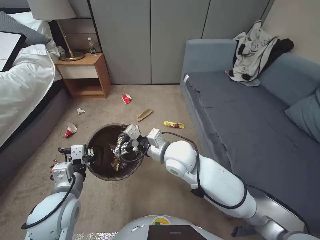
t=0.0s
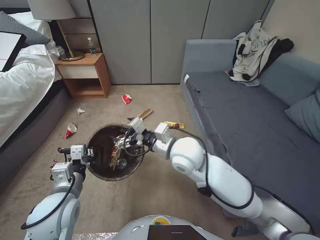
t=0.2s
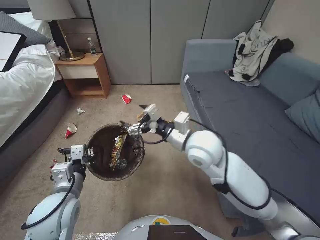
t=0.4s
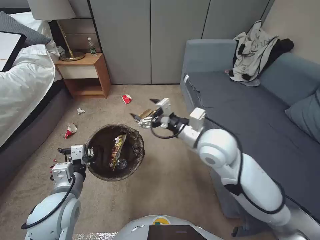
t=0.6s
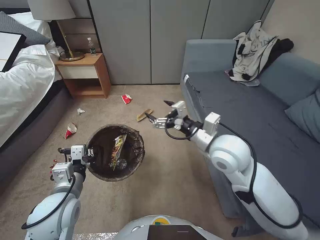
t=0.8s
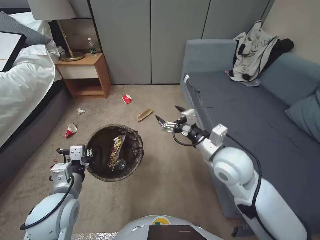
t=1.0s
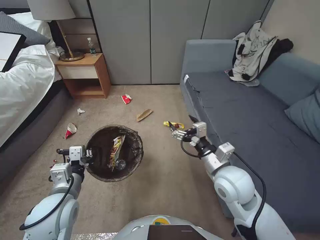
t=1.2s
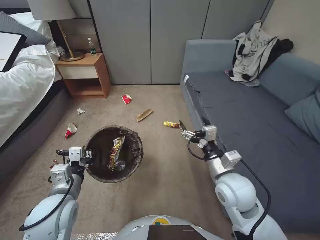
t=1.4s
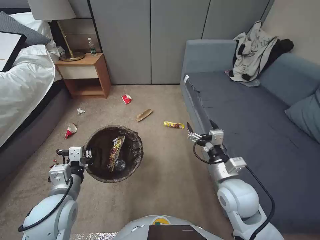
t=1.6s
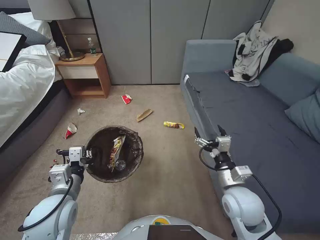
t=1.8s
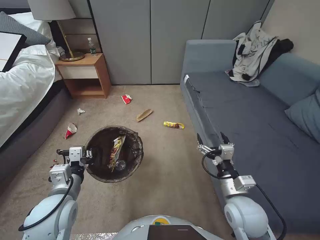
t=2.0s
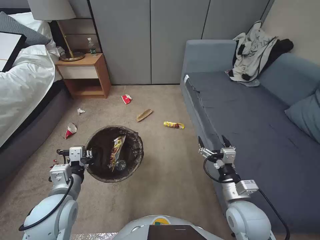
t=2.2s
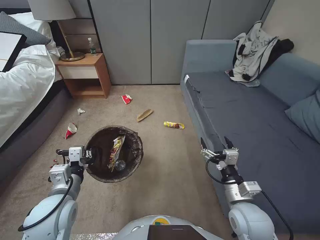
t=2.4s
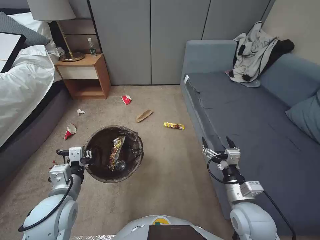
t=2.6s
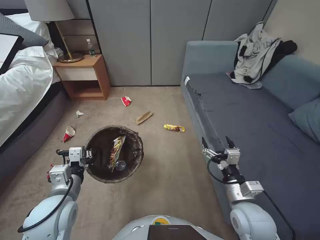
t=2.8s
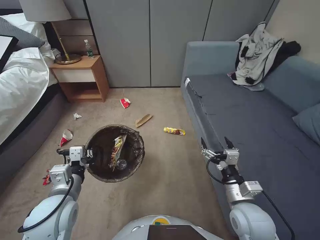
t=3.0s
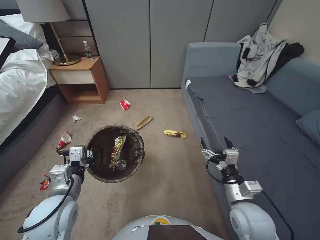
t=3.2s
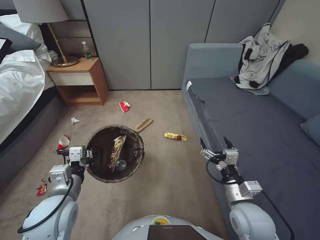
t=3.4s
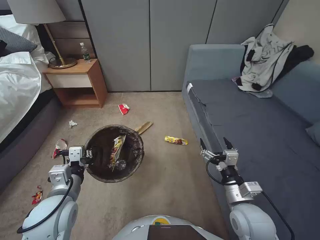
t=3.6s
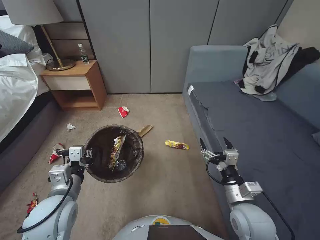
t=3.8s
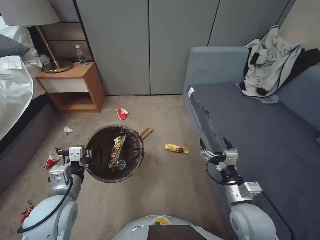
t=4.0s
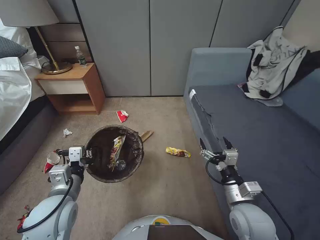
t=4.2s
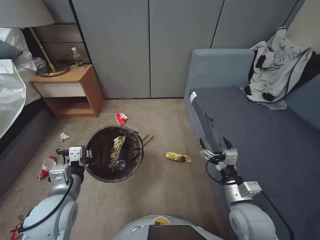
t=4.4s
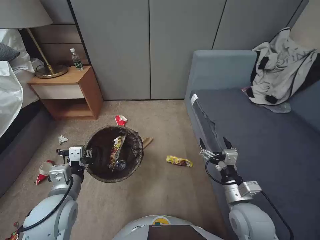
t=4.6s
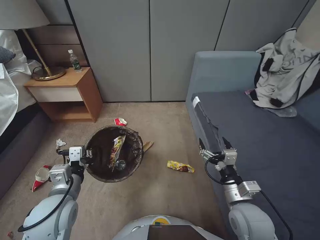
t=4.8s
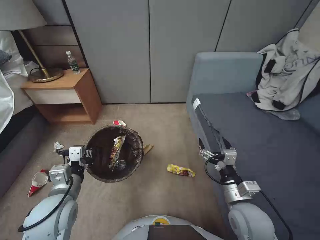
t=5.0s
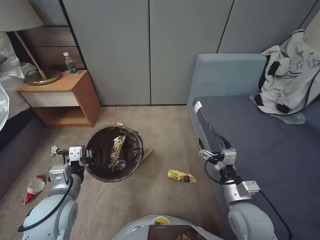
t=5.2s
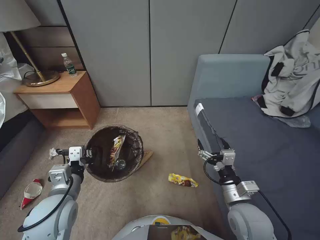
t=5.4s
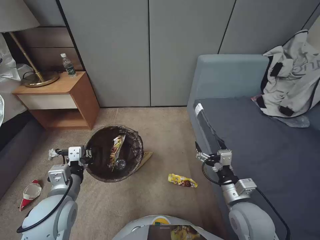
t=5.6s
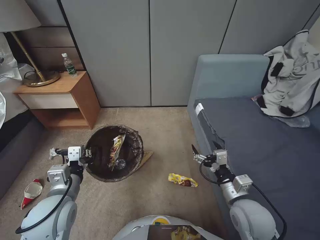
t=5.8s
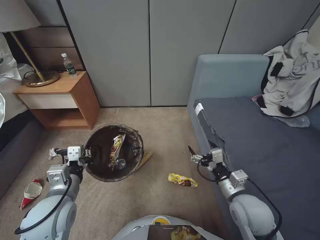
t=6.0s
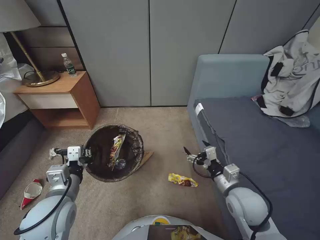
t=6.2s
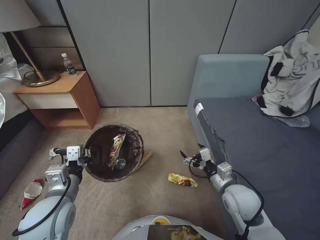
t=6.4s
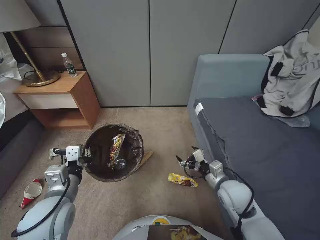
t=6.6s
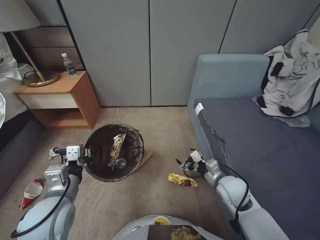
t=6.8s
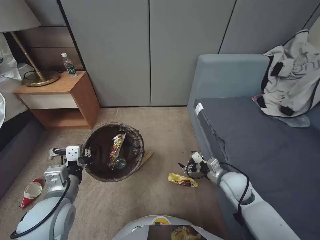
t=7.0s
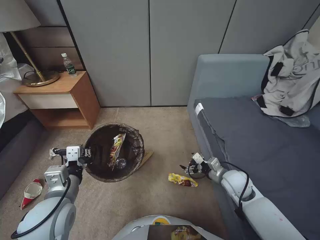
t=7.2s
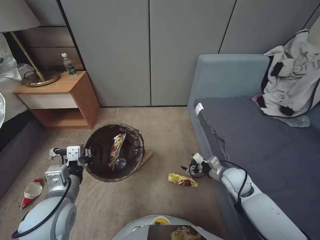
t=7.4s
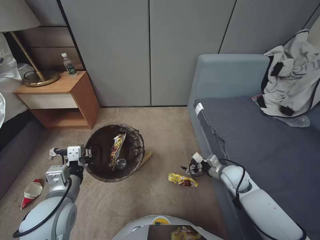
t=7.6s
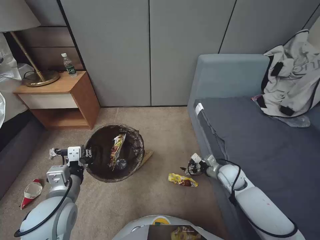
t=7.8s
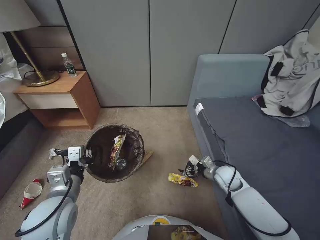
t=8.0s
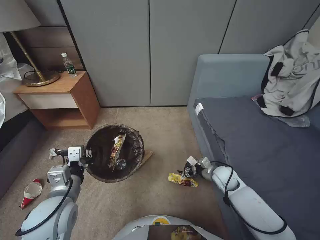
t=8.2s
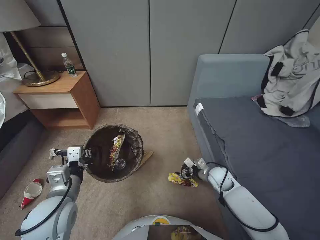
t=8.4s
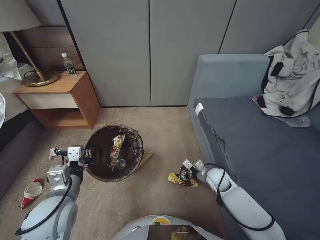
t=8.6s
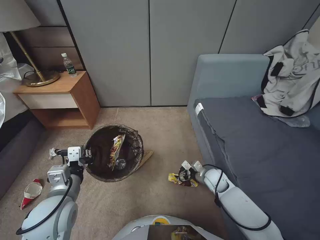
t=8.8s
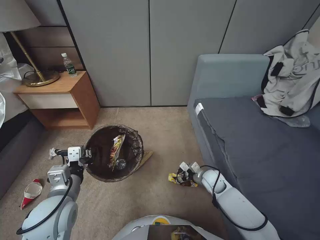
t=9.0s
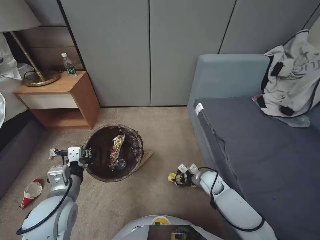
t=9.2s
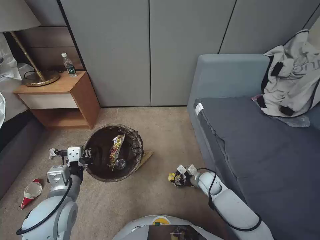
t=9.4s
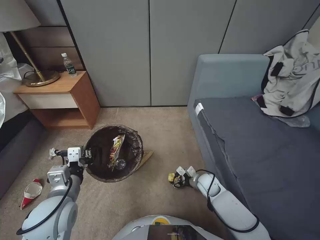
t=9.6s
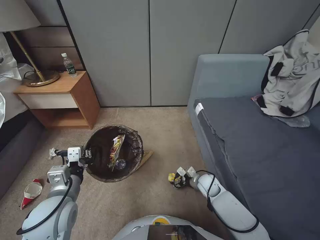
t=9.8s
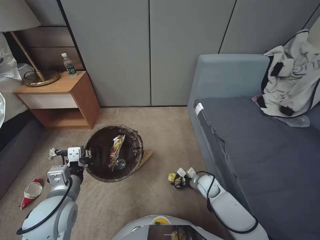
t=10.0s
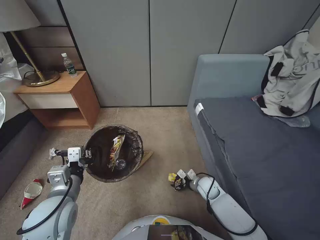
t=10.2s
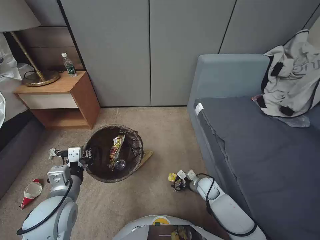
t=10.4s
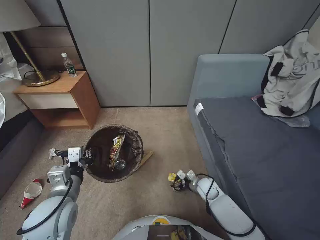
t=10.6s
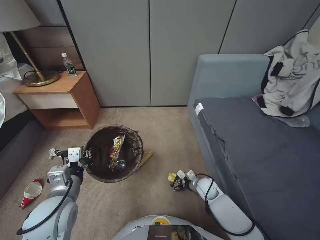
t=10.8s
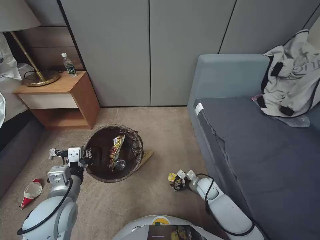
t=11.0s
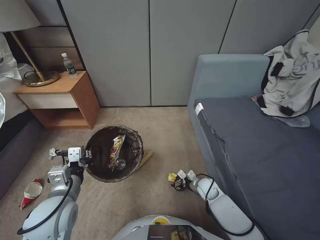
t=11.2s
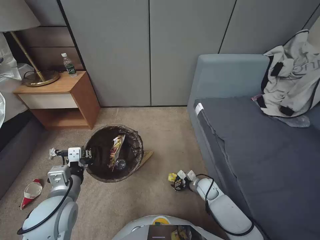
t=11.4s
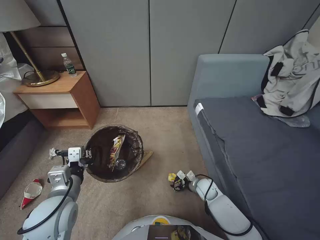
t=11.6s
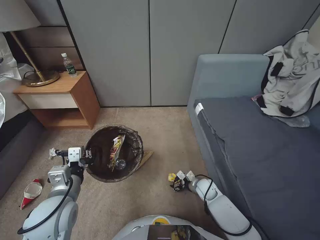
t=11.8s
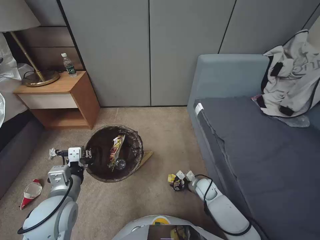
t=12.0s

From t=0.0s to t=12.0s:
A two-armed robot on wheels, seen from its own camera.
Task of the whole recording: Pick up the trash bin, then pick up the garbage from the floor and place it into the trash bin.
From t=0.0s to t=1.6s: The right gripper moves to the right and backward, roughly 20 cm.
From t=1.6s to t=3.0s: The right gripper goes roughly 5 cm backward.
From t=6.0s to t=7.6s: The right gripper goes about 15 cm forward and downward.
From t=7.6s to t=9.0s: The right gripper moves downward, approximately 10 cm.
From t=9.0s to t=10.4s: The right gripper shifts some 5 cm downward.
From t=10.4s to t=12.0s: The grippers move only a little.

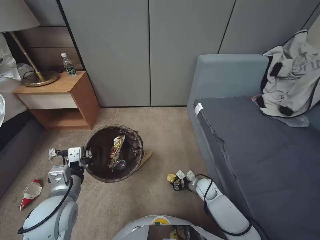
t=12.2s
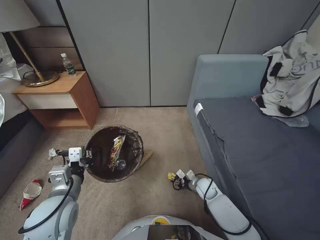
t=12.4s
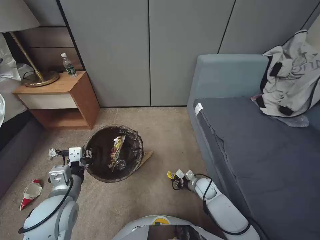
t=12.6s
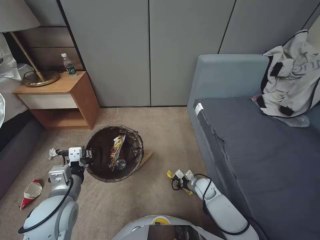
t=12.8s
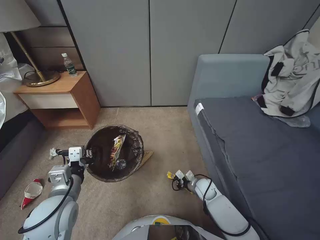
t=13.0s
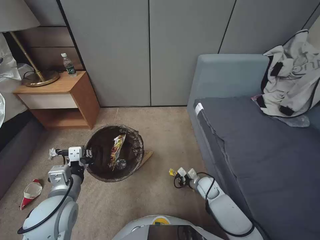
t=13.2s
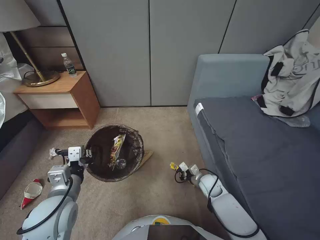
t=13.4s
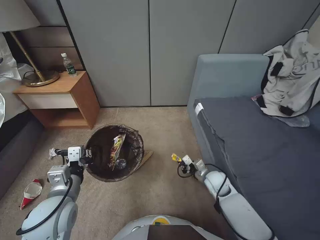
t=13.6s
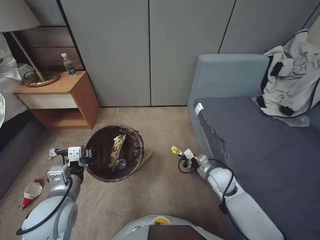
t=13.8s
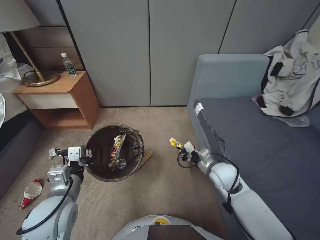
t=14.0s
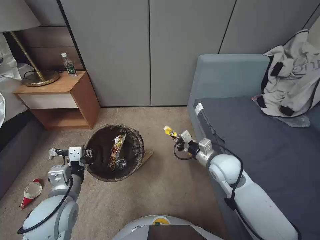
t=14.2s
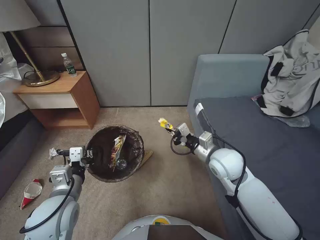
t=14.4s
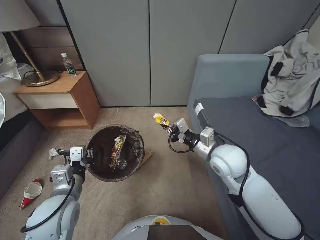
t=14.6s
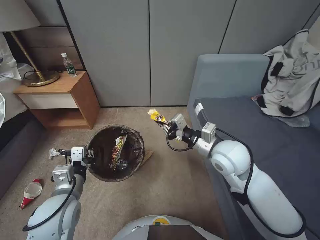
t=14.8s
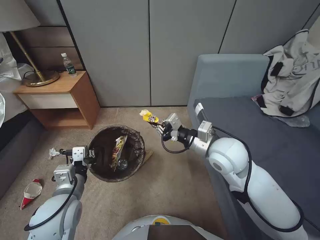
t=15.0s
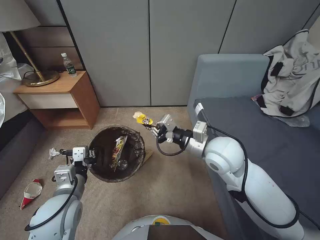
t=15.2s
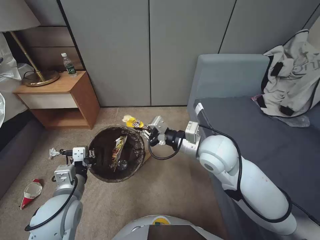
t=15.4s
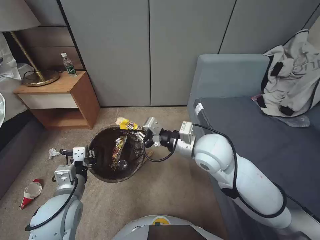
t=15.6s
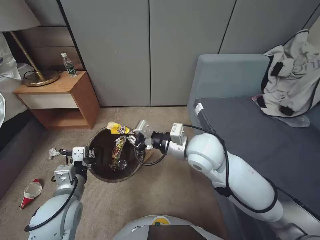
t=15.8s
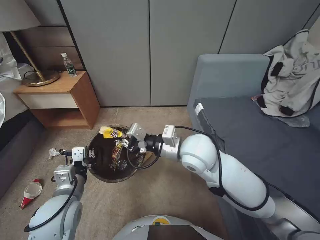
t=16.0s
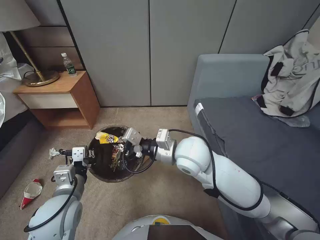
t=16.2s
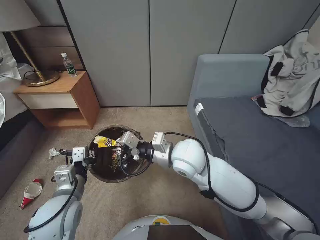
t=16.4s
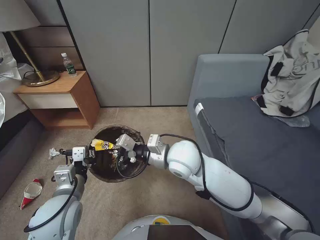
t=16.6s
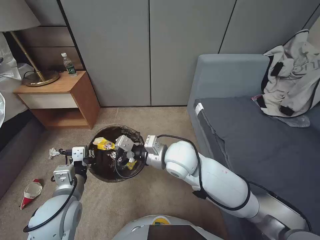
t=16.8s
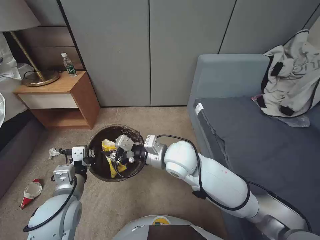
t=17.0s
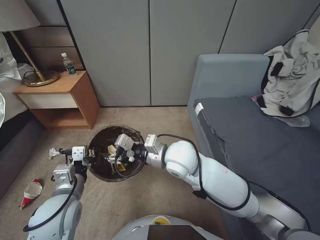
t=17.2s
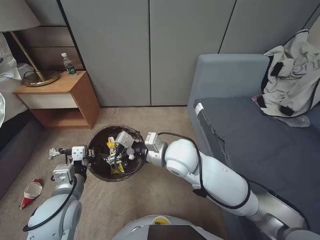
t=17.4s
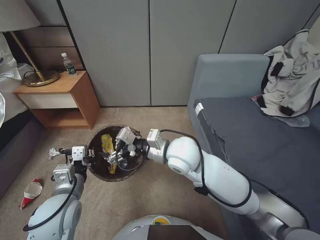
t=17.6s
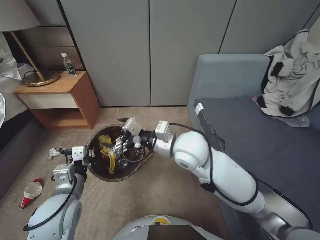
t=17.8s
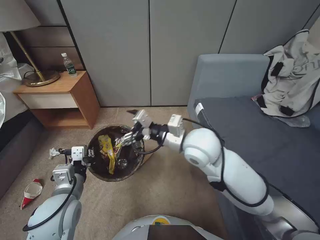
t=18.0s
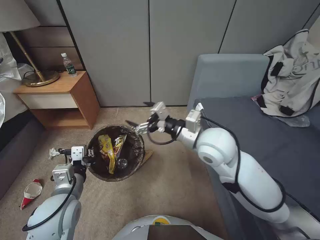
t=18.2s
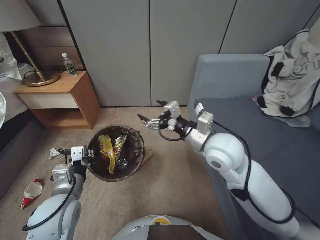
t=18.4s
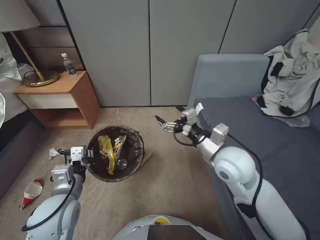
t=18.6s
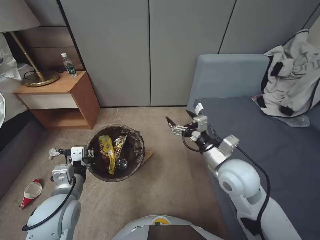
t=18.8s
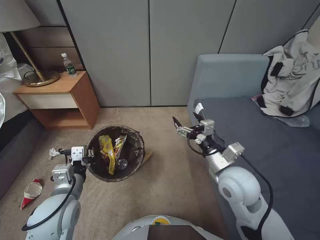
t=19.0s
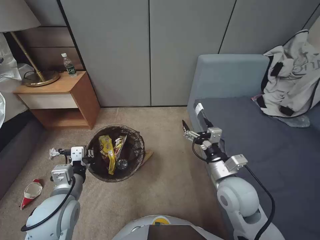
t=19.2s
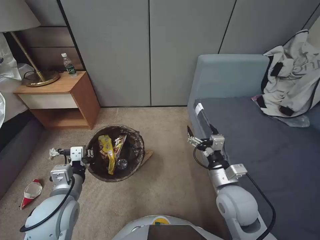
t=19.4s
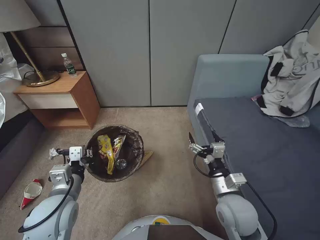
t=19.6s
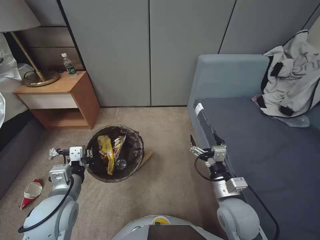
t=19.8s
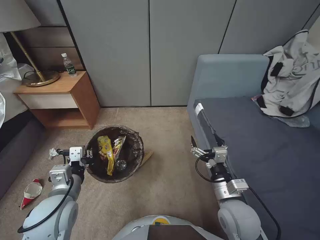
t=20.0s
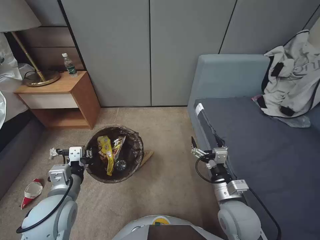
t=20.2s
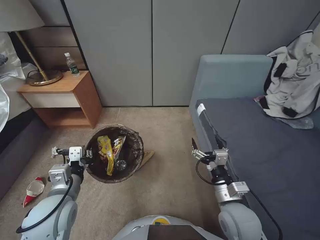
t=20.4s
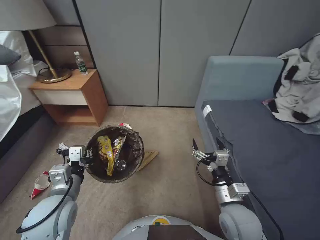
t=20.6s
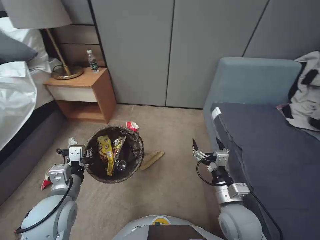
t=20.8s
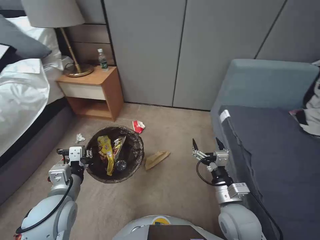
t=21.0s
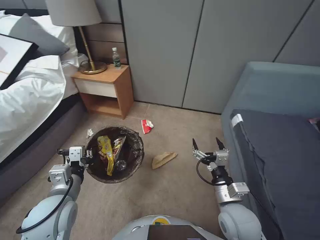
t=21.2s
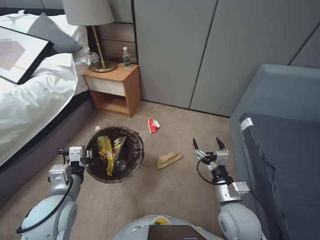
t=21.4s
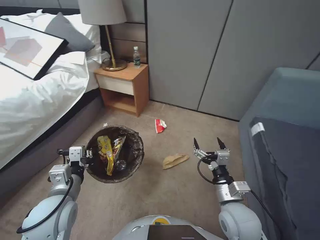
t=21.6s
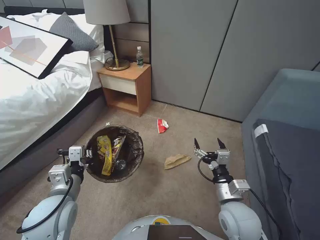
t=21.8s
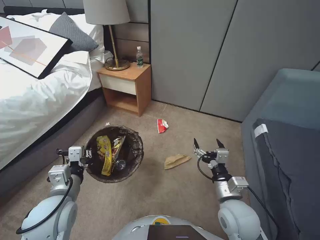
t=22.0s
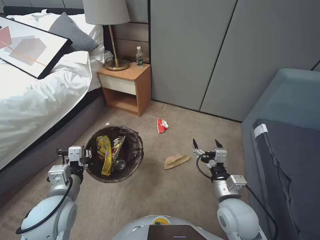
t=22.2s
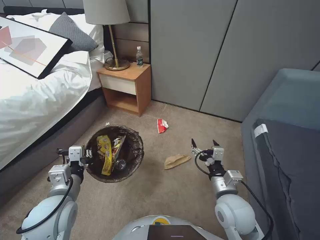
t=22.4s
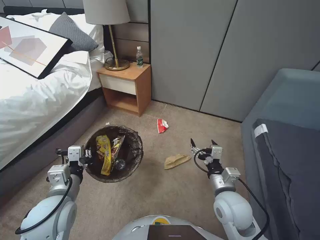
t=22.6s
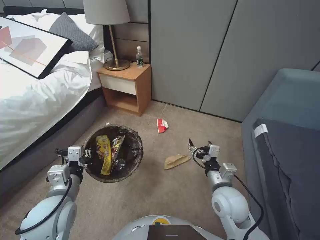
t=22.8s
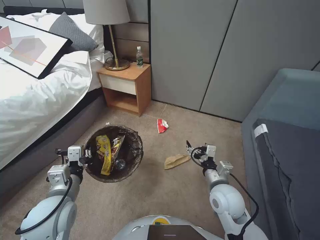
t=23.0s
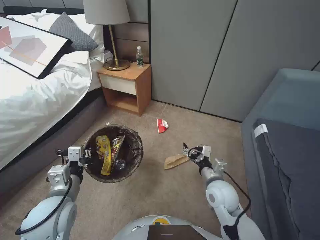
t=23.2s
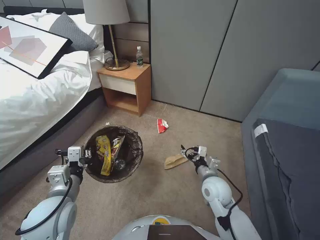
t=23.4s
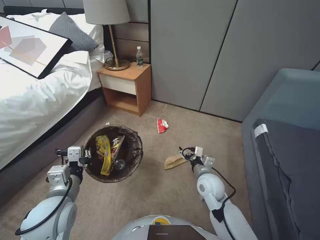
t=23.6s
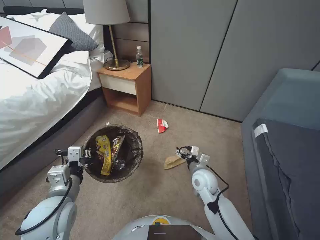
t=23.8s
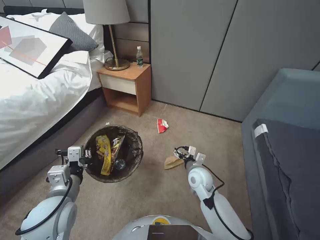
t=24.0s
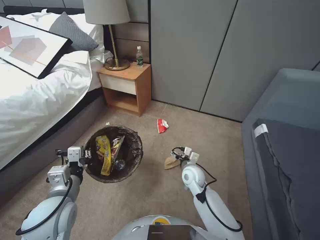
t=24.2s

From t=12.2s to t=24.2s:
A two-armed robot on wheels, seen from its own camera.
Task of the whole recording: Pick up the trash bin, then pick up the garbage from the floor and place it into the trash bin.
From t=12.2s to t=13.8s: The right gripper heads upward, covering about 10 cm, and closes up.
From t=13.8s to t=15.2s: The right gripper moves upward, some 25 cm.
From t=15.2s to t=16.6s: The right gripper is displaced to the left by about 10 cm.
From t=16.6s to t=18.2s: The right gripper travels to the right by approximately 5 cm, and opens up.
From t=18.2s to t=19.8s: The right gripper shifts roughly 25 cm downward, backward and to the right.
From t=22.6s to t=24.2s: The right gripper moves forward, downward and to the left, some 15 cm.
